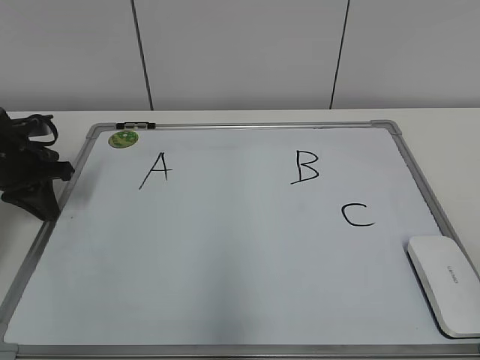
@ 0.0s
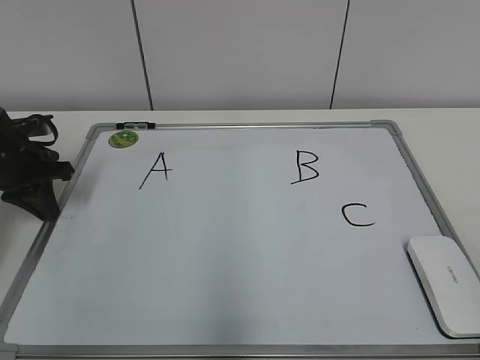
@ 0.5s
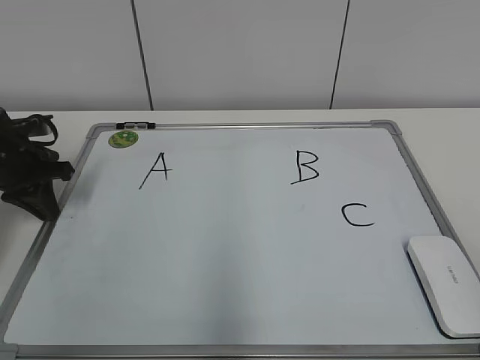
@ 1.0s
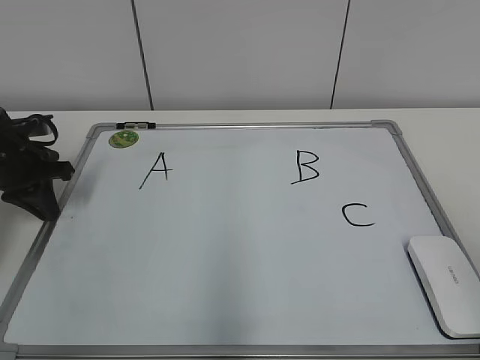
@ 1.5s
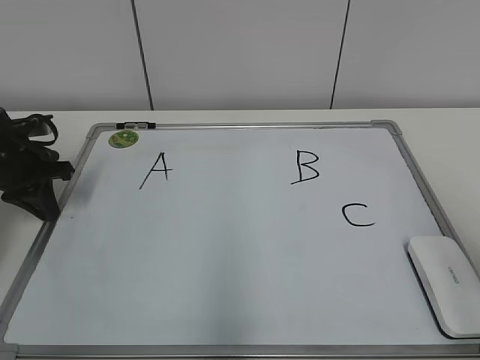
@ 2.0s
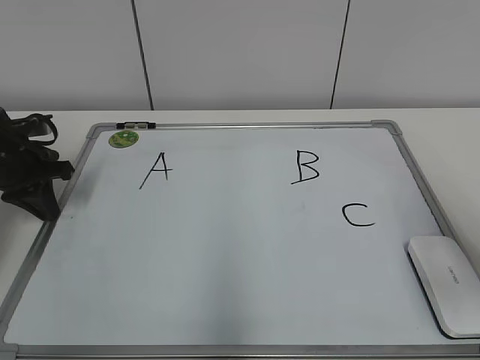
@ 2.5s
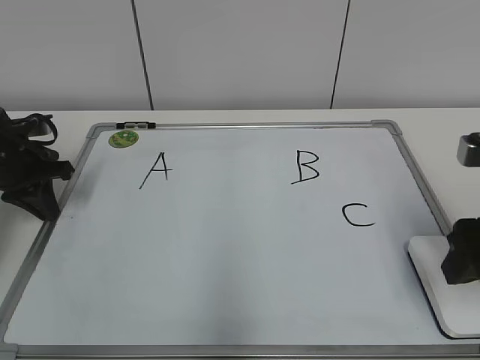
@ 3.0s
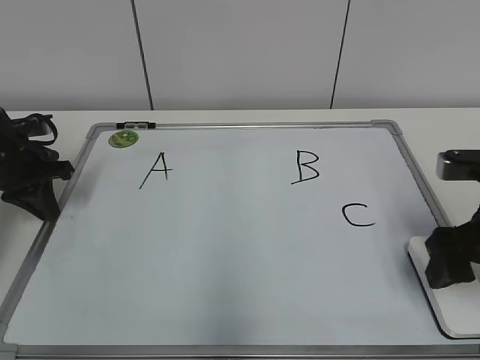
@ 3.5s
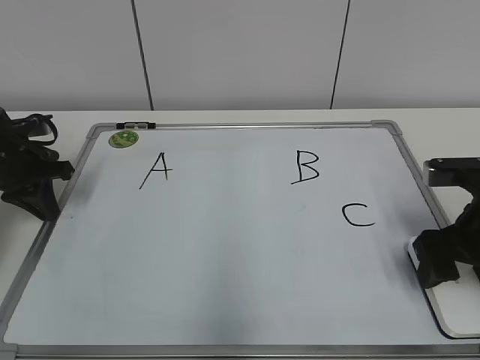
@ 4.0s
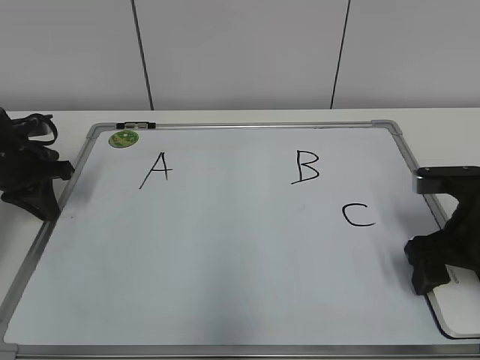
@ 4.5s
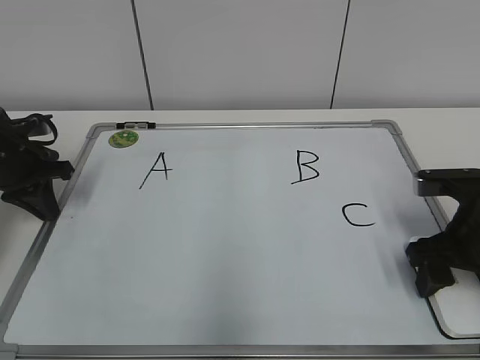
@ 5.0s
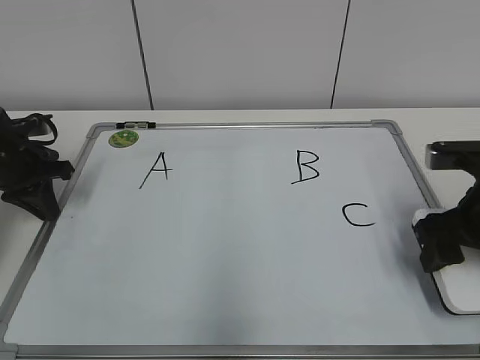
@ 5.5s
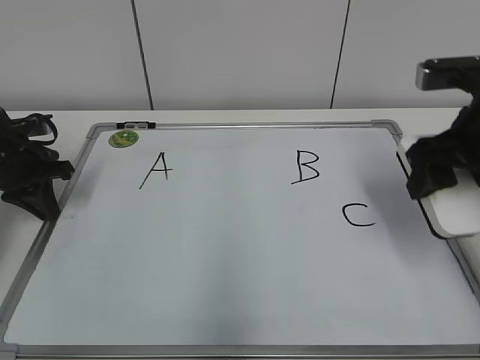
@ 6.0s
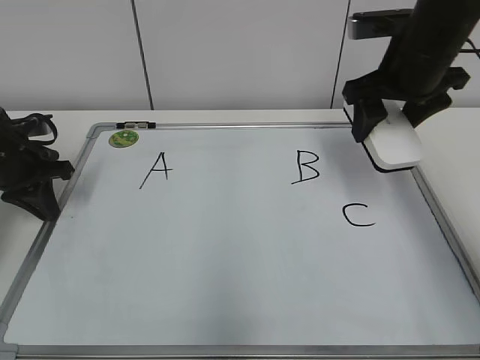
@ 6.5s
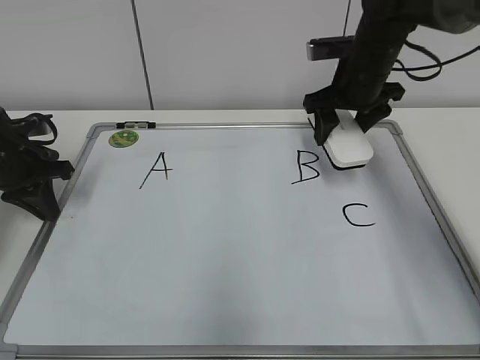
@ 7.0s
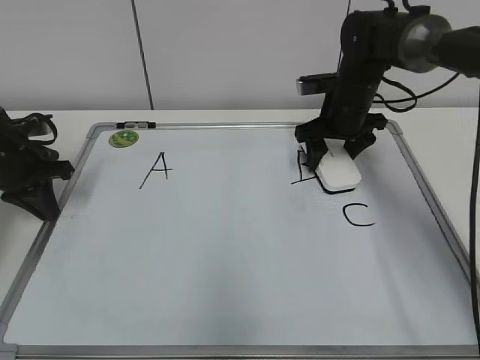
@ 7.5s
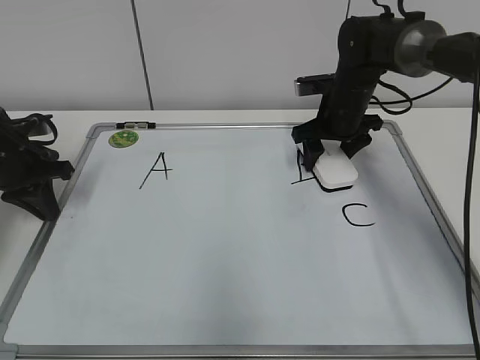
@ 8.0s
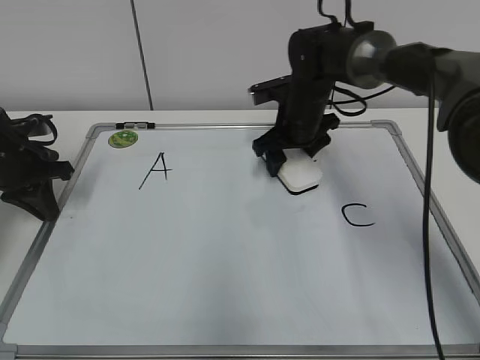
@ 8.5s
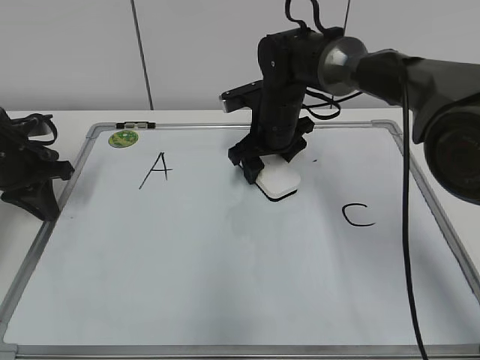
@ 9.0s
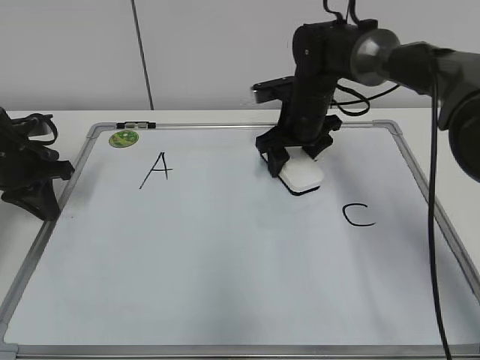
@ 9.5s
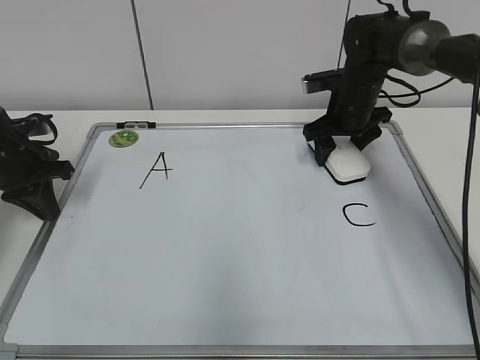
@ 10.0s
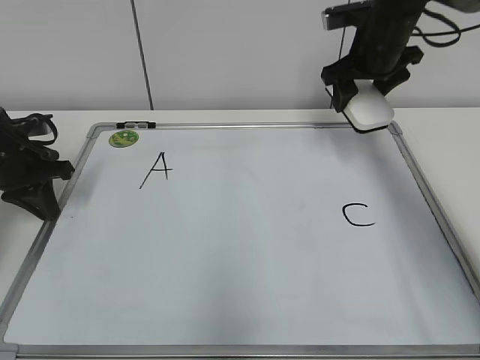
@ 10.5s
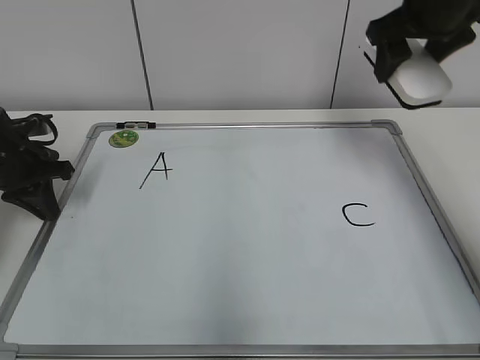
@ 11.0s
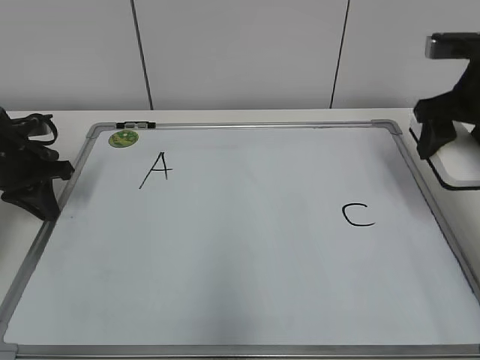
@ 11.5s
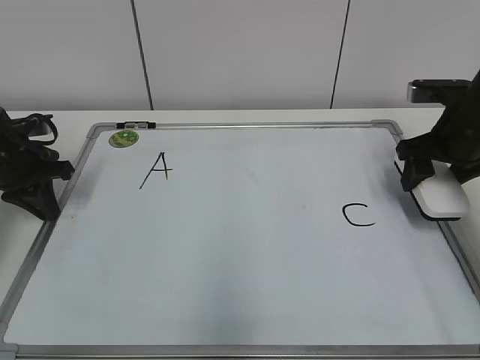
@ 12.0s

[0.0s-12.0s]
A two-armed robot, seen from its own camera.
Task of the whole recording: pick up the eraser on the blackboard and erase the letter "B".
Step, 0.0s to 5.0s: Grab the eraser with your right hand.
Step, 5.5s to 9.5s: Erase the letter B with your right hand.
2.0s to 4.0s: The right gripper shifts approximately 20 cm forward and downward.
4.0s to 6.0s: The right gripper heads upward, covering some 10 cm.
6.0s to 8.0s: The right gripper shifts approximately 25 cm forward and downward.
8.0s to 10.0s: The right gripper reaches some 10 cm to the left, then returns.
10.0s to 12.0s: The right gripper shifts about 15 cm backward and to the right, and travels upward and back again, some 20 cm each way.

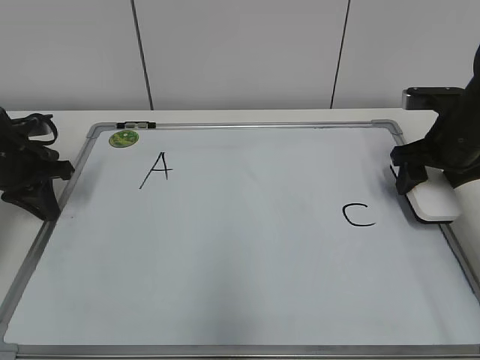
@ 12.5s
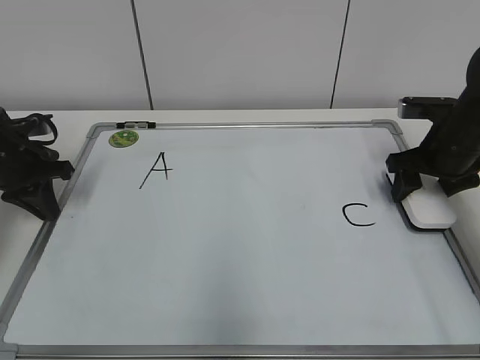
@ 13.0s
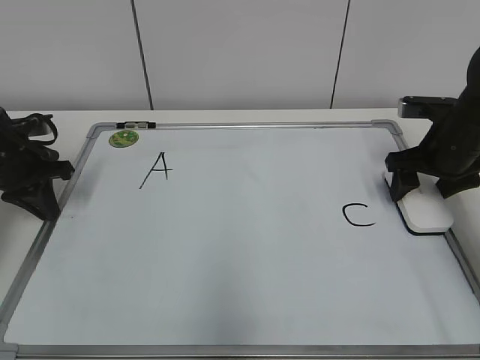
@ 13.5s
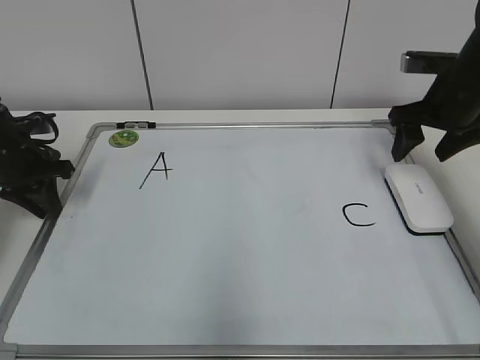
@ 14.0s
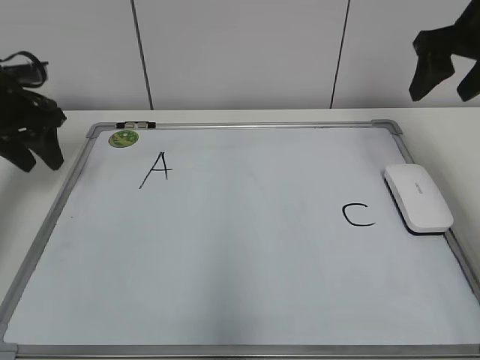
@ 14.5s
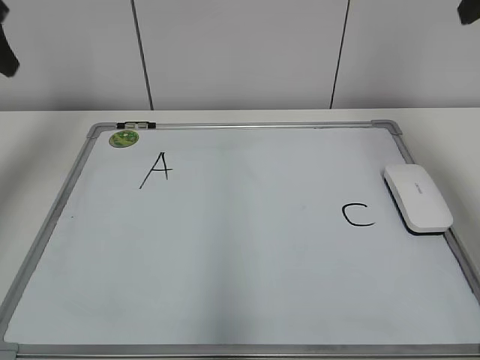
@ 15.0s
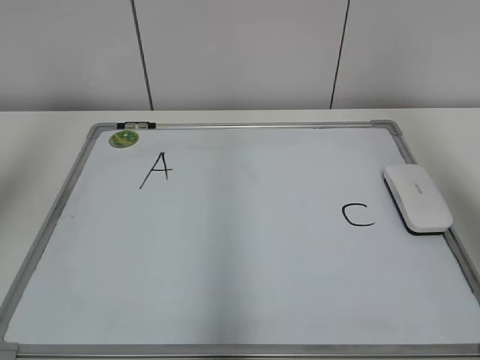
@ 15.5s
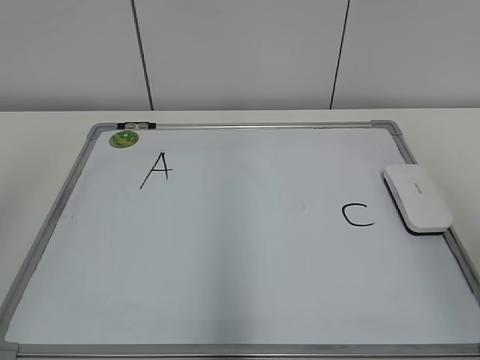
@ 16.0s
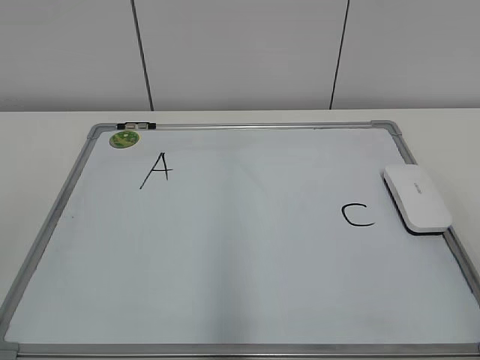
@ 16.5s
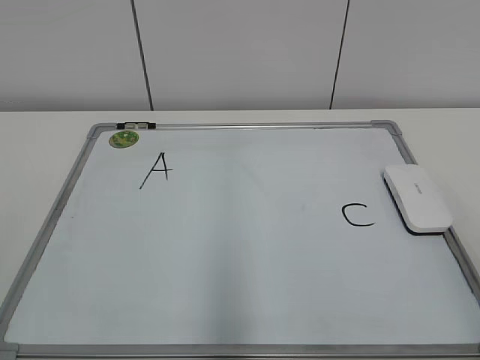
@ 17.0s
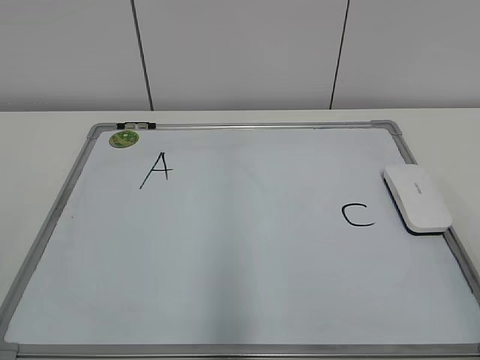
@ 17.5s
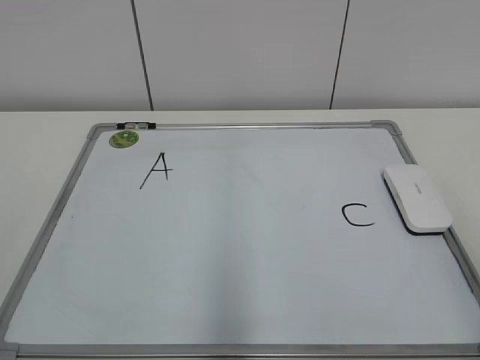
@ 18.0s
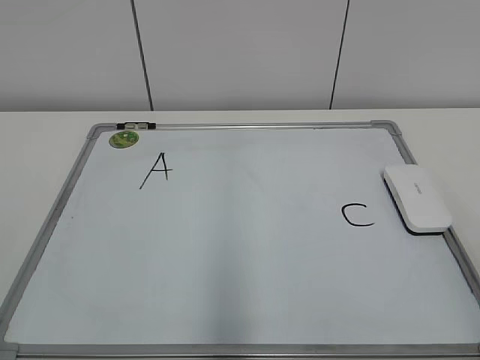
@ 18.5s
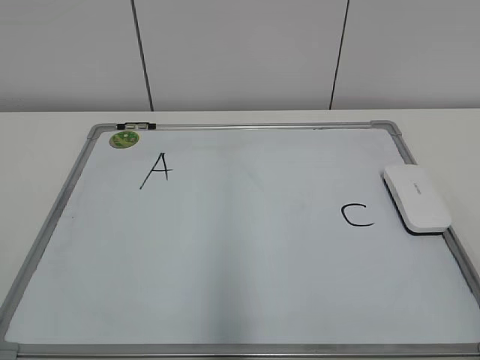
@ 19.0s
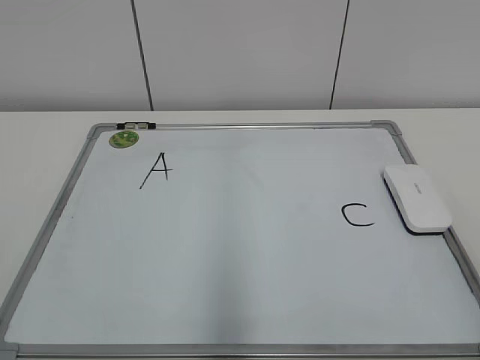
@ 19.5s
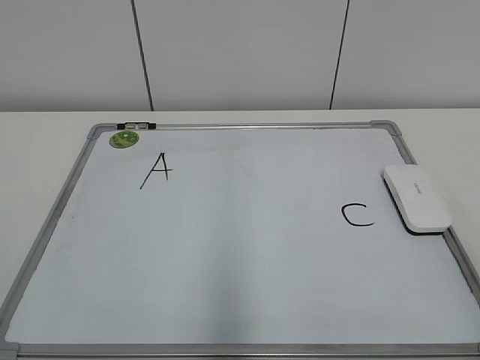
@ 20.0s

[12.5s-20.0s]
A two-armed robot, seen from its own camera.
Task of the whole recording: pick up the eraser on the blackboard and erase the letter "B".
12.5s to 14.5s: The left gripper goes some 5 cm upward, and opens. The right gripper goes roughly 15 cm upward.
14.5s to 16.5s: The two grippers go about 35 cm backward.

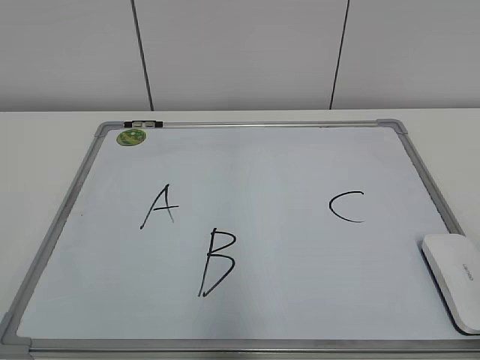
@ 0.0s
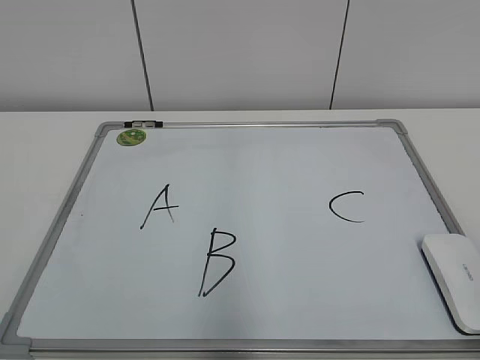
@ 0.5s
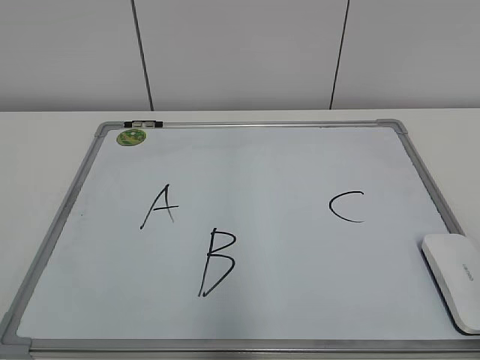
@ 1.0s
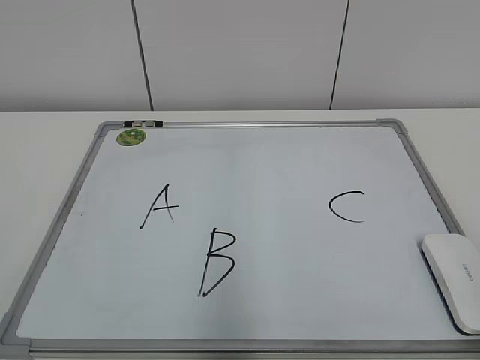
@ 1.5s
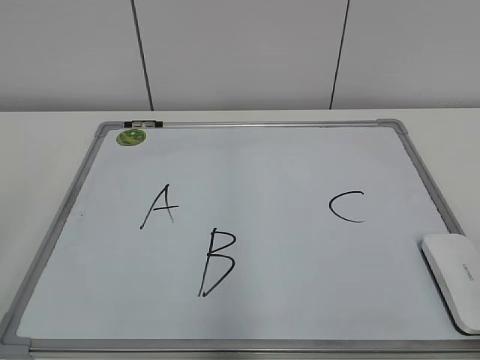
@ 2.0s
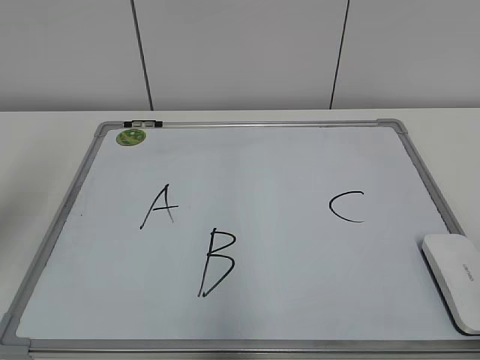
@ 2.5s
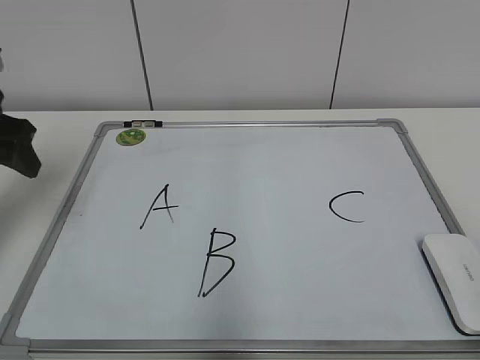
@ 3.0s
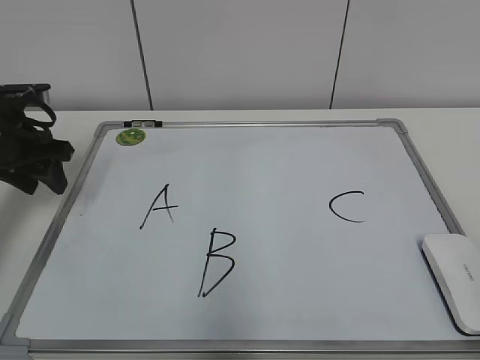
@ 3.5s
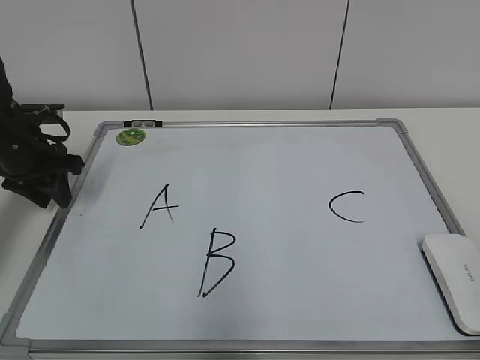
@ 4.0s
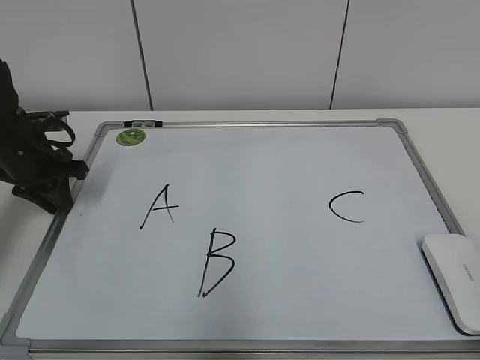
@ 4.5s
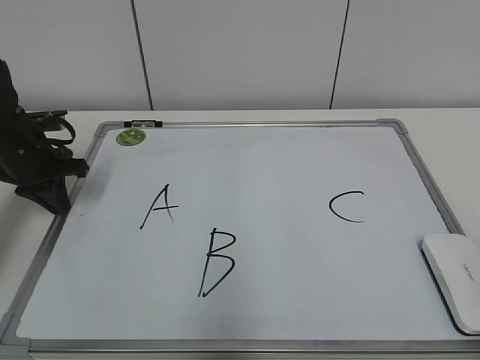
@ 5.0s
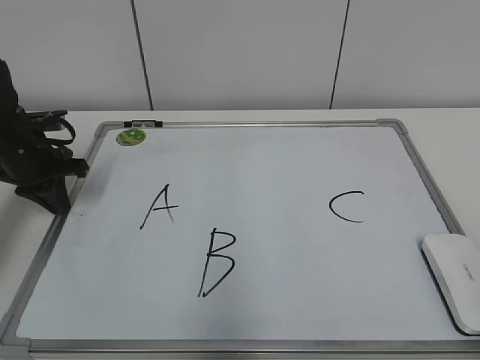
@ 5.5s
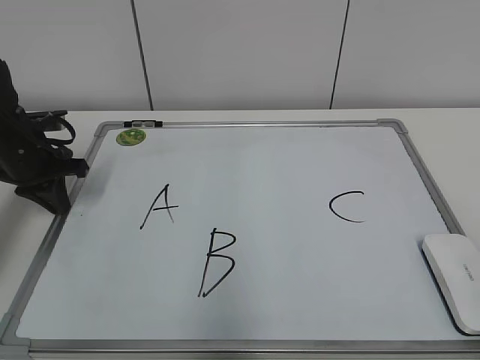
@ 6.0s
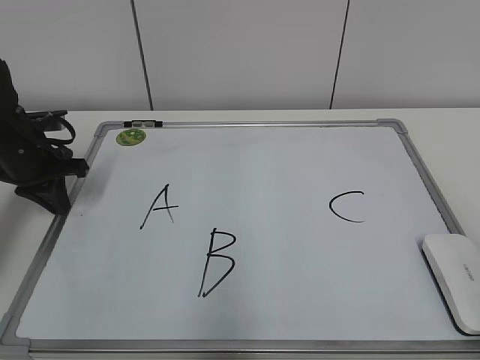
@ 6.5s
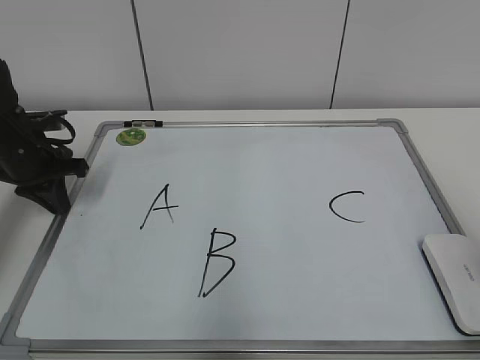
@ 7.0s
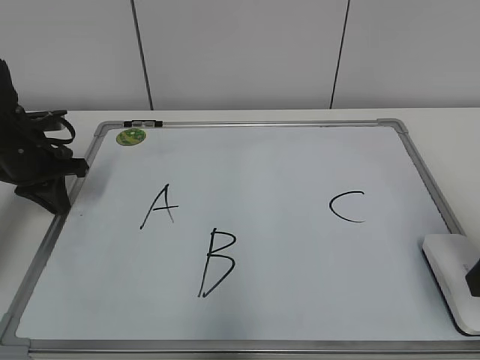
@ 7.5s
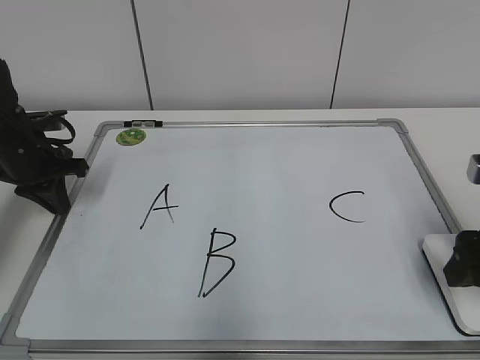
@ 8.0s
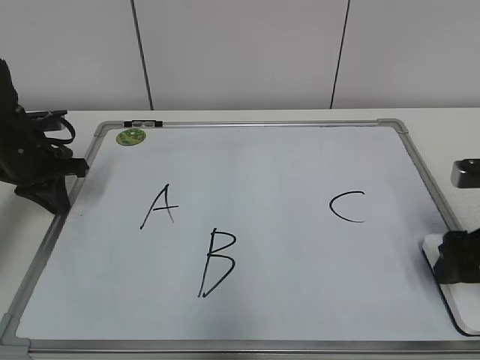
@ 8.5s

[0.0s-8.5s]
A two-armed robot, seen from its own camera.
Task of the whole recording: pick up the eraser on the blackboard and erase the letter "B".
Step, 0.0s to 4.5s: Hold the drawing board steady with your left hand.
2.0s to 4.0s: The left gripper goes about 40 cm forward and downward, and closes.
4.0s to 6.5s: The left gripper closes up.
6.5s to 8.5s: The right gripper moves forward and downward, some 25 cm, and opens.
